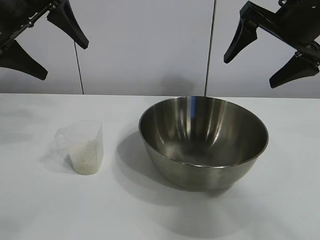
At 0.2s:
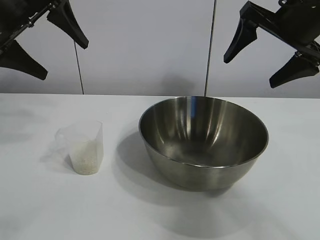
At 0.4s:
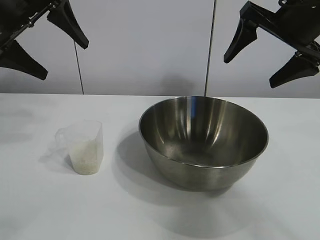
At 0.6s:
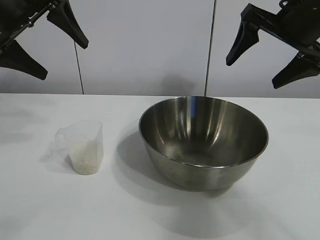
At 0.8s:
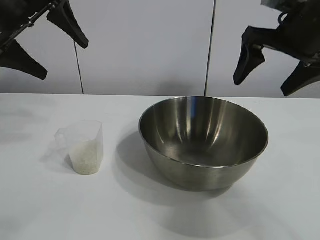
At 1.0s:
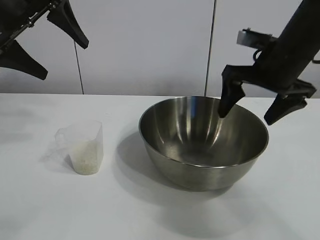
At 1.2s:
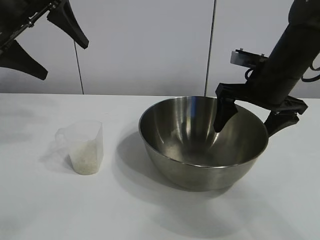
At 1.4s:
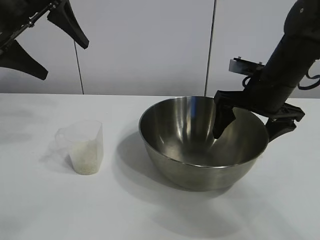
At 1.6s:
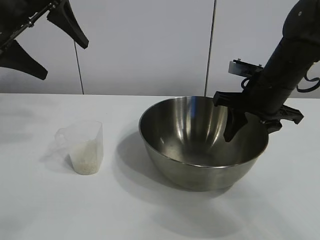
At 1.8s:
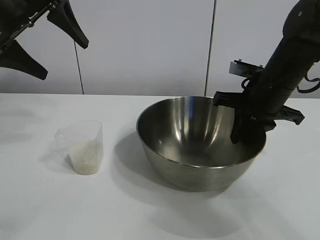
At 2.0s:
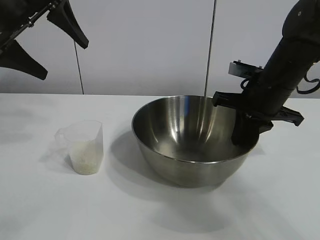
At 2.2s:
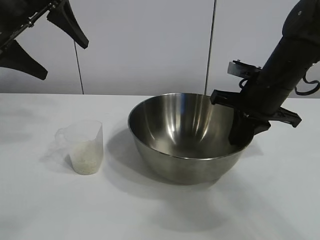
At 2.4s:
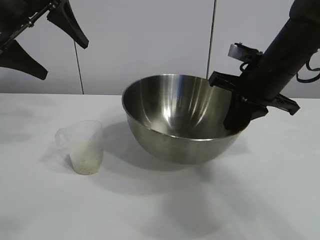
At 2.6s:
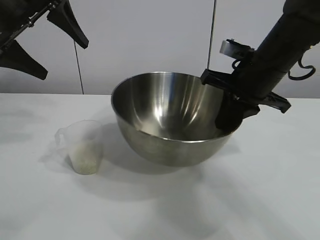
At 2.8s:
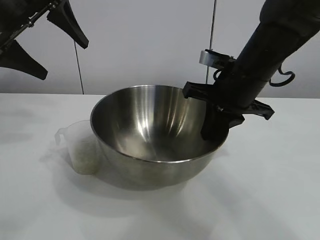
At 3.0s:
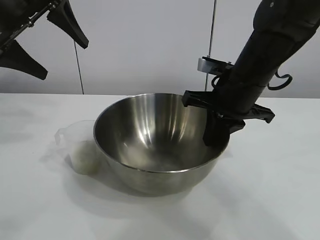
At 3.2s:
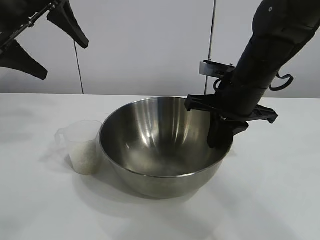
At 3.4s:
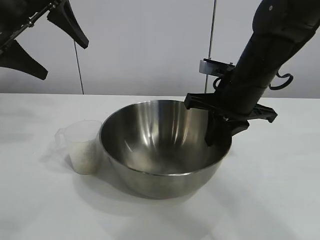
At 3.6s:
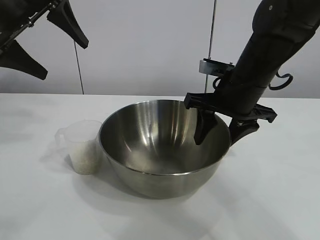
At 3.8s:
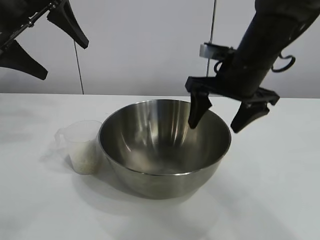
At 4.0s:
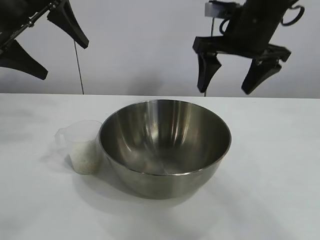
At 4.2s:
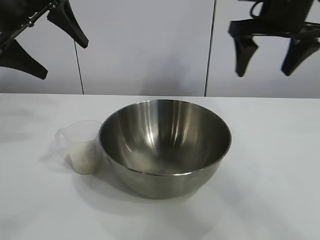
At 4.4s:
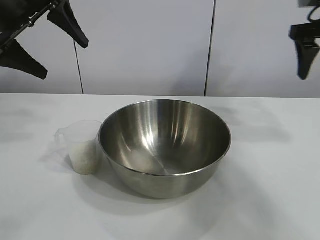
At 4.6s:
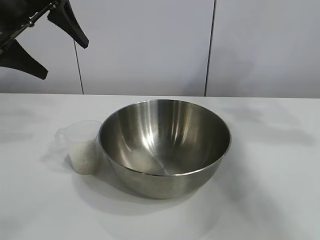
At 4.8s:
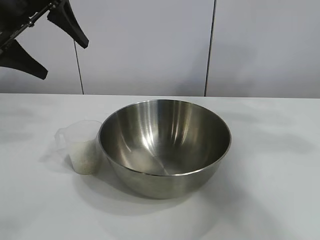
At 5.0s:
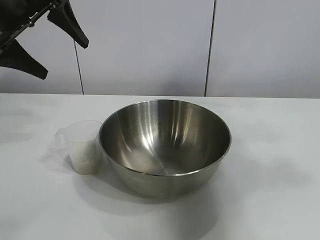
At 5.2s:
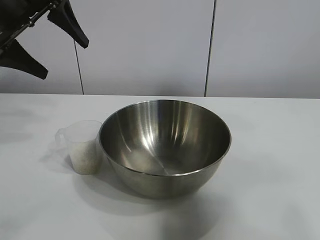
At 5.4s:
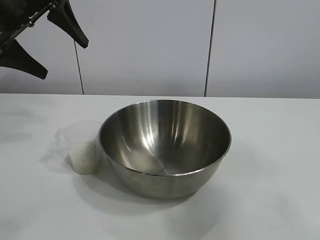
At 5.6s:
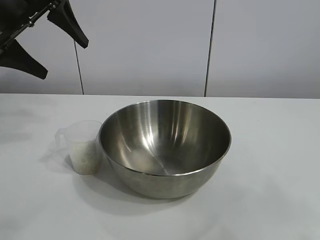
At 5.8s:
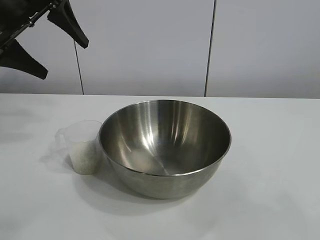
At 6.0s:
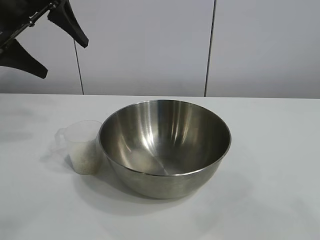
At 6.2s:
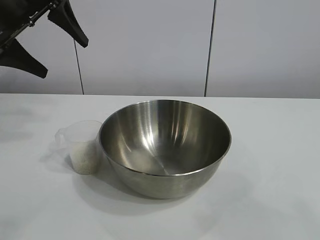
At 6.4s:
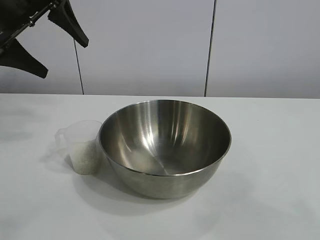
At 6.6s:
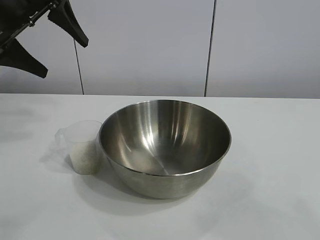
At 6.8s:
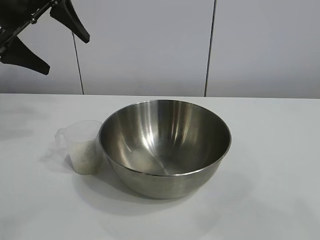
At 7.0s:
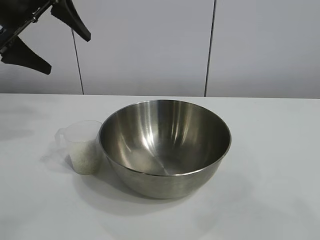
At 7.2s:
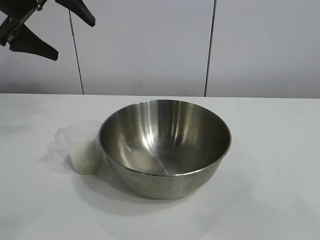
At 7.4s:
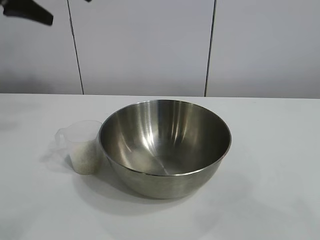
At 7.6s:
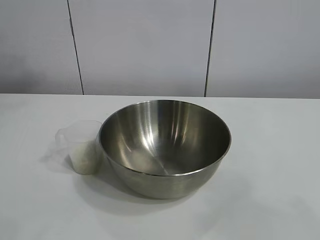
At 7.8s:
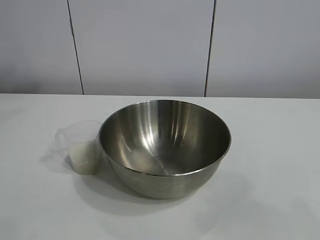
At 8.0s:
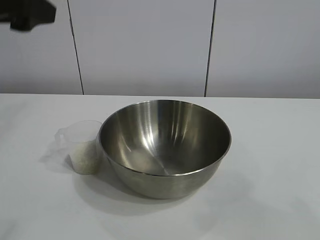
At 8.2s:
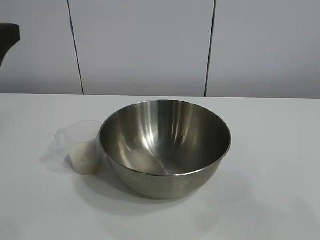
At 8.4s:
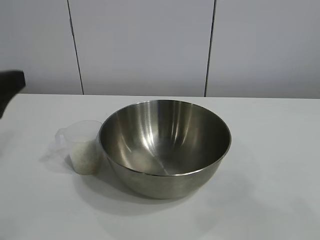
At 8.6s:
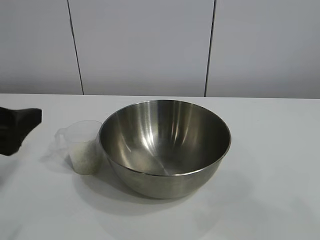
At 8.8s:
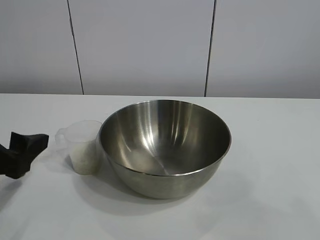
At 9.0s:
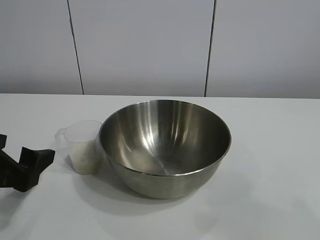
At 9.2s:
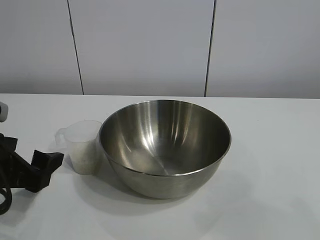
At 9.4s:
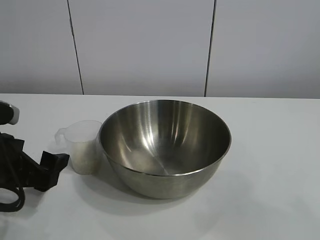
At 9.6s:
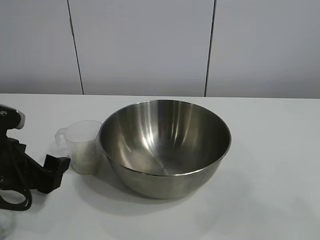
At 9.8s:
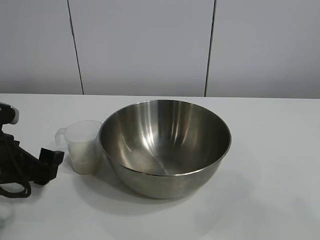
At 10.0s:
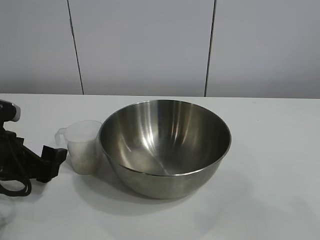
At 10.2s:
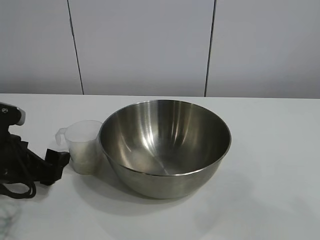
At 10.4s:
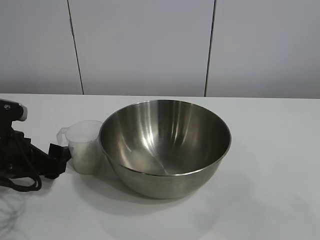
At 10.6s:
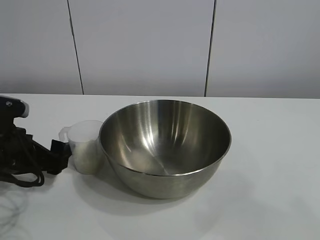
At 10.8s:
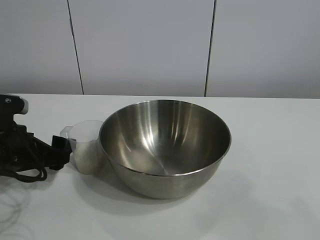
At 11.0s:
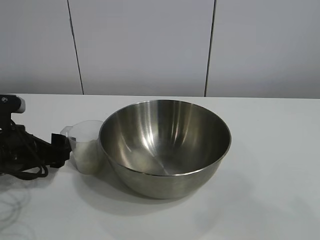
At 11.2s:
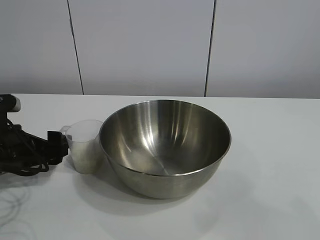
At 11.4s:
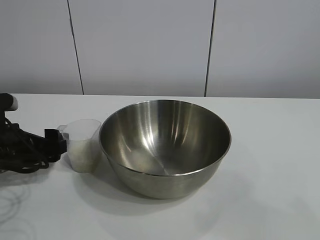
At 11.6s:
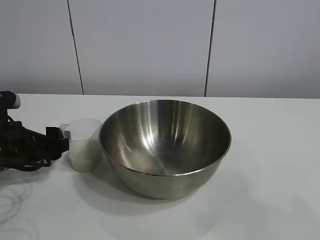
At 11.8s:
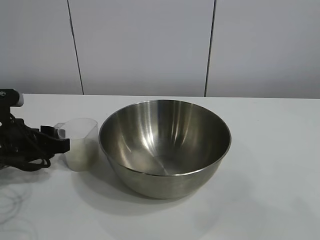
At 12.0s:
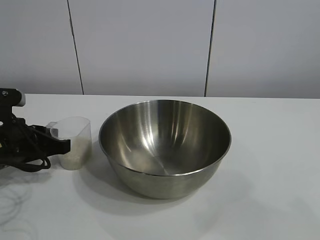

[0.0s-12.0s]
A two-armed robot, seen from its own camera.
Task of the whole recording: the right gripper grasp the rice container and place it in the center of the table, the left gripper grasp the rice scoop and pour the rice into the rice container.
Step, 0.6s to 3.6s: Move the bowl in the center of view with right gripper.

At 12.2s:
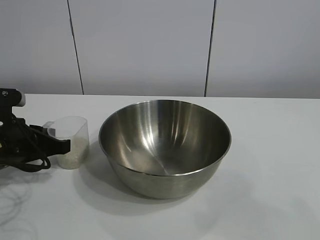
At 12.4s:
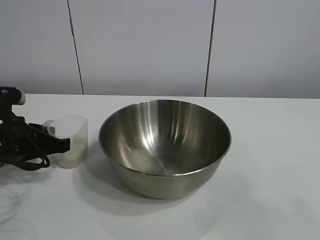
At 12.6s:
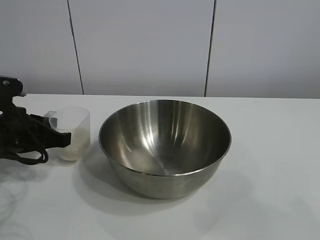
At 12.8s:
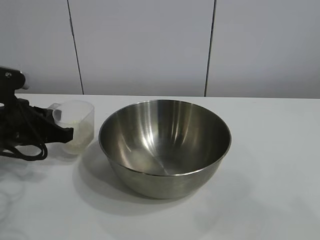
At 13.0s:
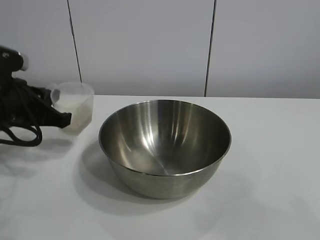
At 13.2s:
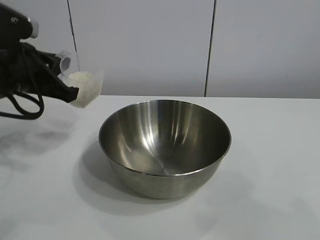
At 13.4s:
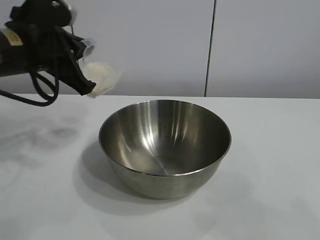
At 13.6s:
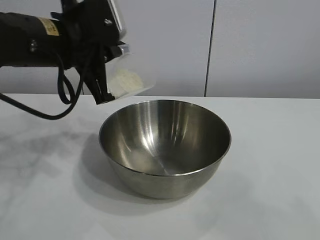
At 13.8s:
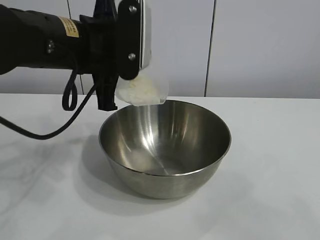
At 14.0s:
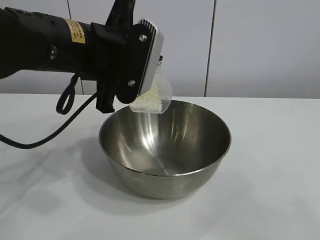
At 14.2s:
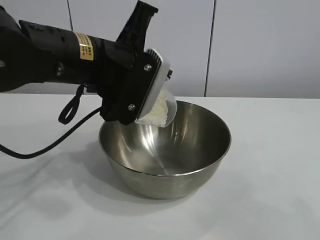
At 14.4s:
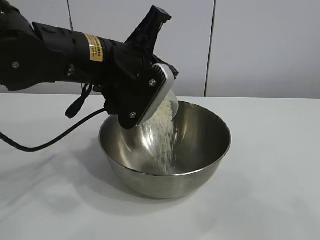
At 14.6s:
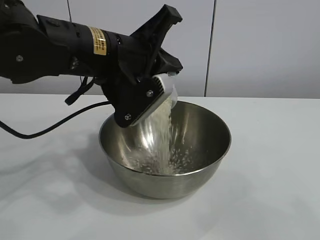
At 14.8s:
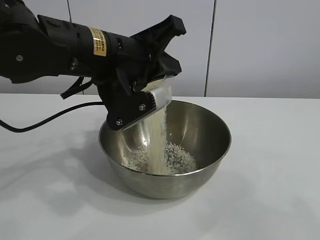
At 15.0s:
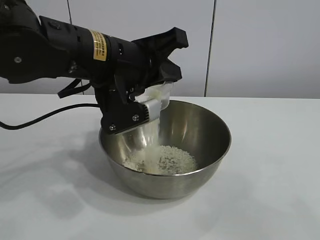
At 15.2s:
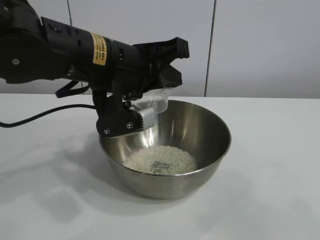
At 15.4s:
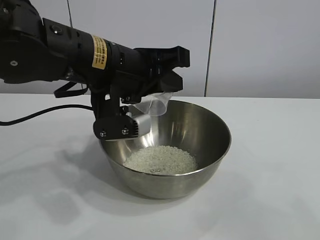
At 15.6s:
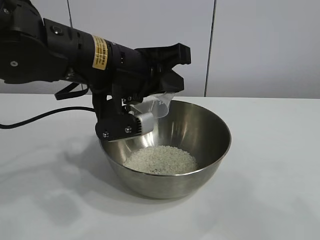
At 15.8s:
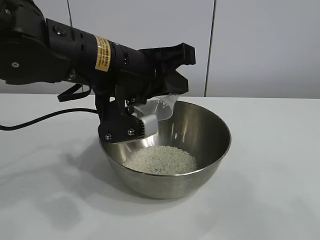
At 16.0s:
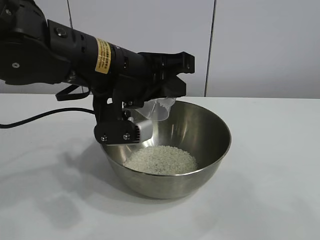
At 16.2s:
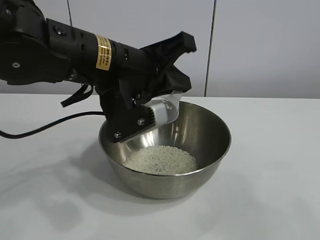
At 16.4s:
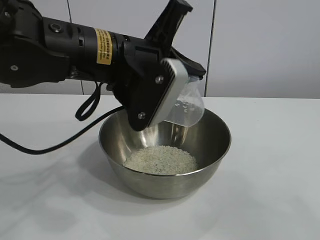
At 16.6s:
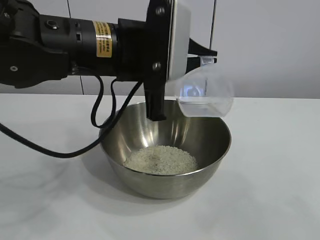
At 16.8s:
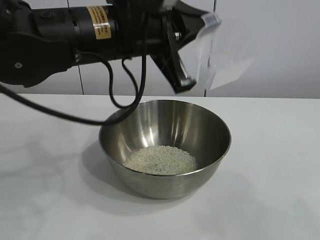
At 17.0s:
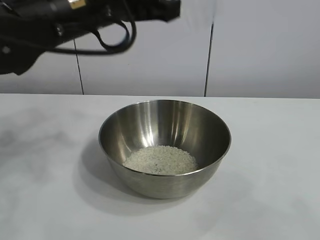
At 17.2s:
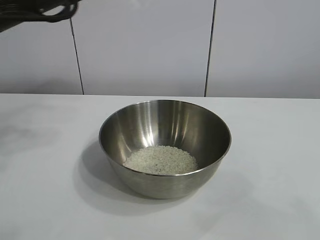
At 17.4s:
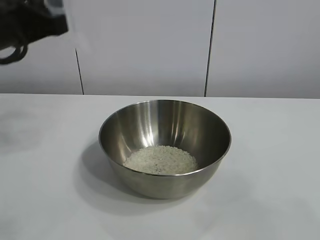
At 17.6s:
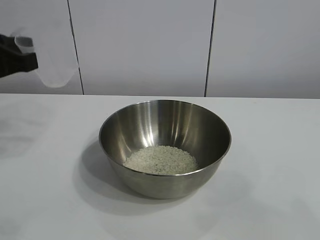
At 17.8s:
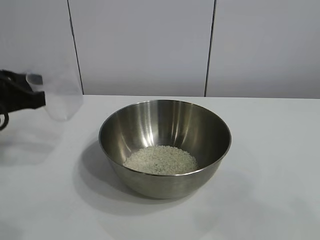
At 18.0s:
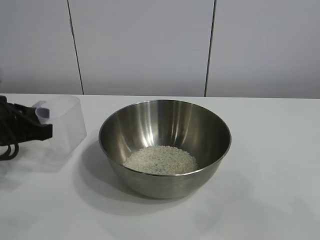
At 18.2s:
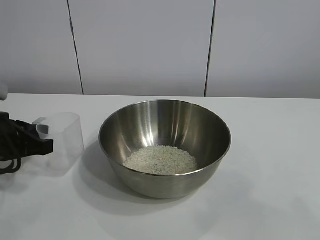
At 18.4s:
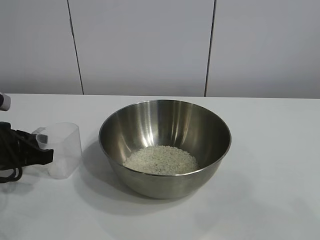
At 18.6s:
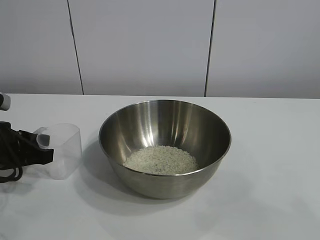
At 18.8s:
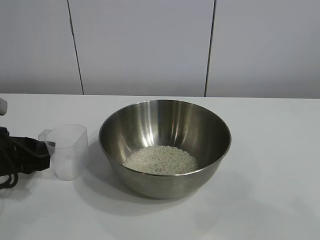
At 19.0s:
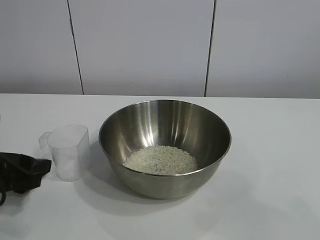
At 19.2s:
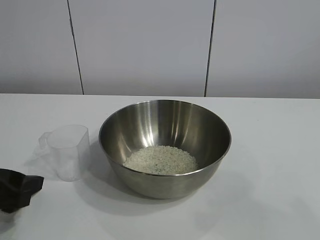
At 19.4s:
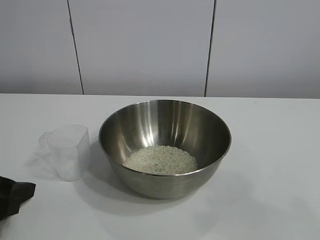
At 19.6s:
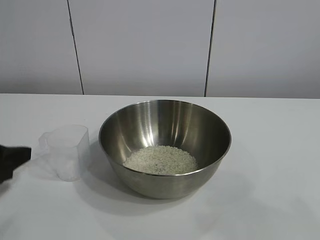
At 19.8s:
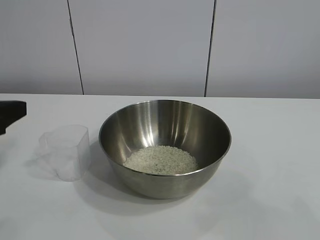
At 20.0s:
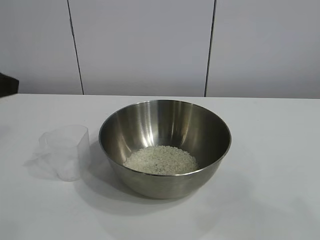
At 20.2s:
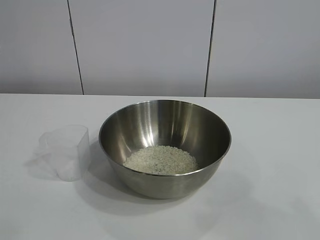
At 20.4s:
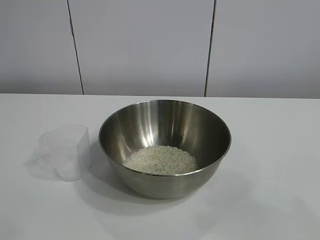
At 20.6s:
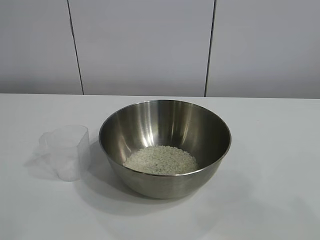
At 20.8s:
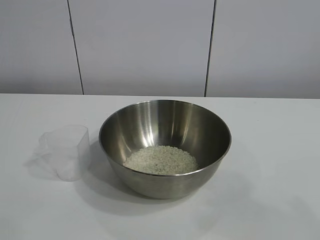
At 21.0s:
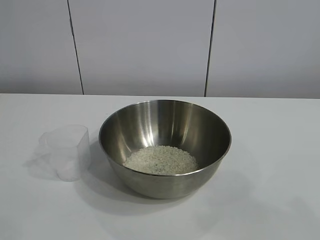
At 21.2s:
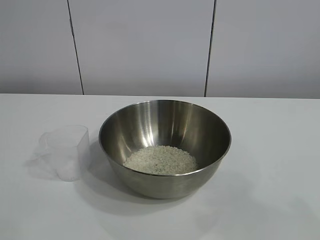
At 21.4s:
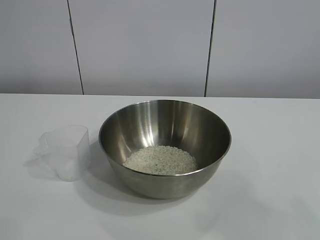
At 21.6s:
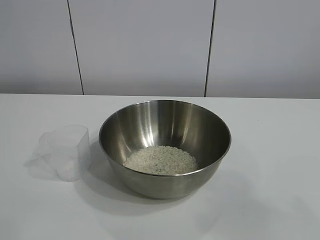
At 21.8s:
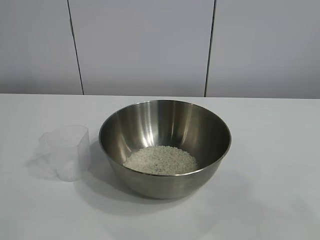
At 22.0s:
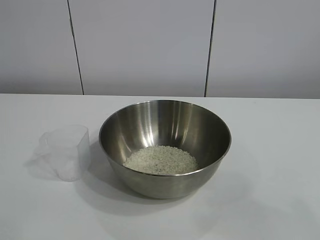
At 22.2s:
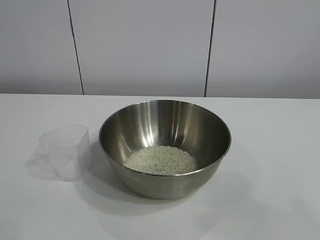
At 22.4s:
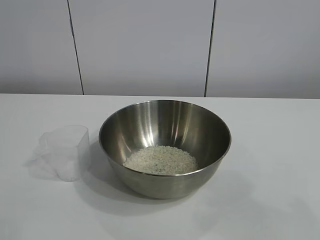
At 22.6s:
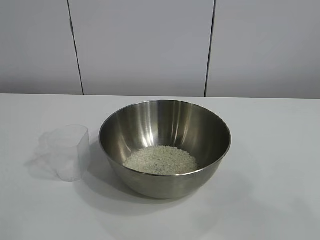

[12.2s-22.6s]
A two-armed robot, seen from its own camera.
Task of the whole recording: the right gripper grasp the rice container and place it in the center of the table, the left gripper grasp the rice scoop and pour the rice into the rice container.
Step, 12.4s to 15.6s: Pour the rice from the cup into the bowl with the left gripper.
Step, 16.0s to 18.8s: Place the cup on the table with the left gripper.
